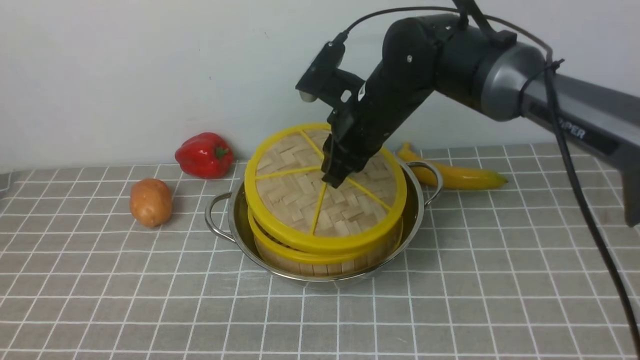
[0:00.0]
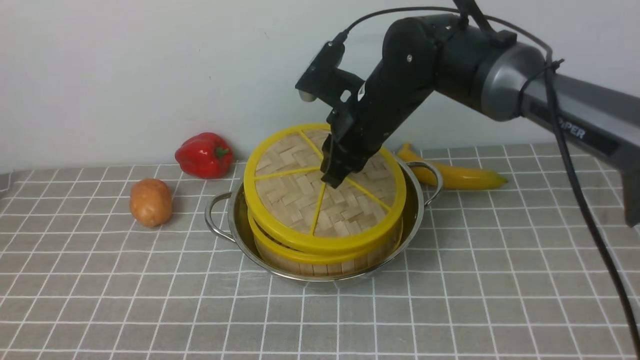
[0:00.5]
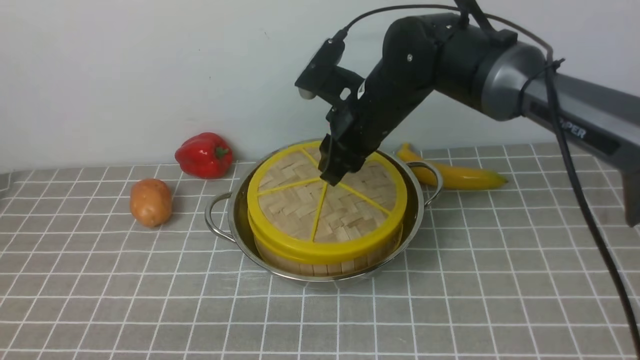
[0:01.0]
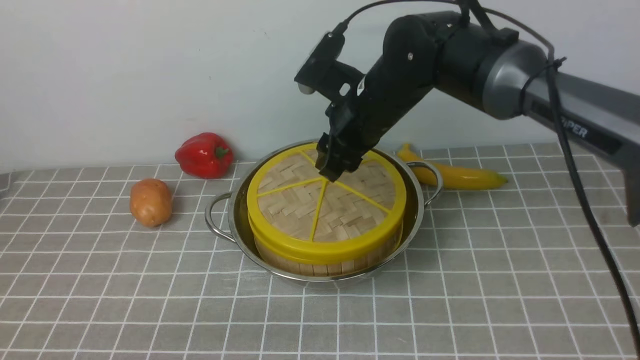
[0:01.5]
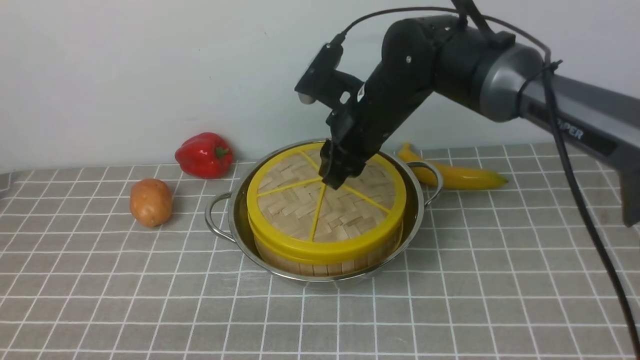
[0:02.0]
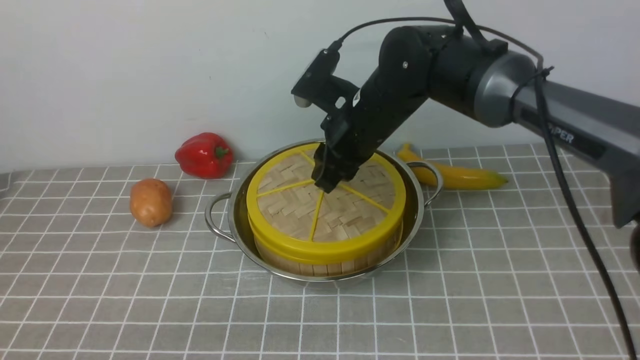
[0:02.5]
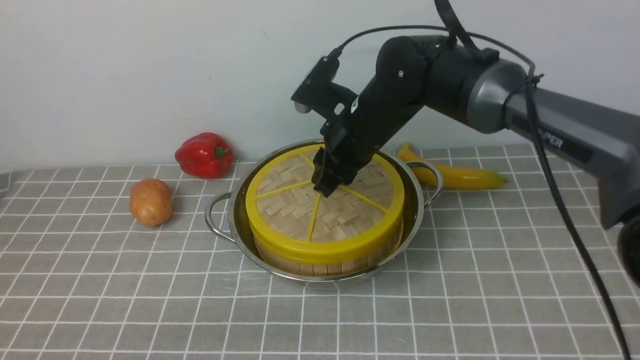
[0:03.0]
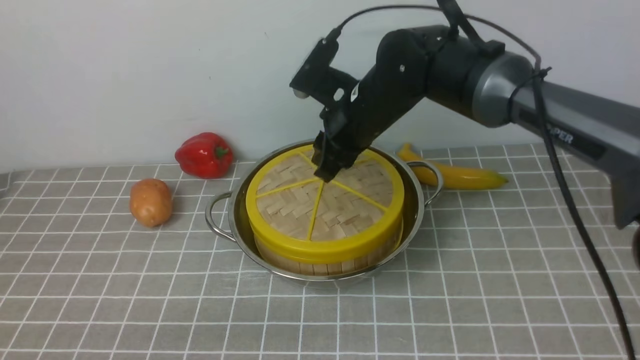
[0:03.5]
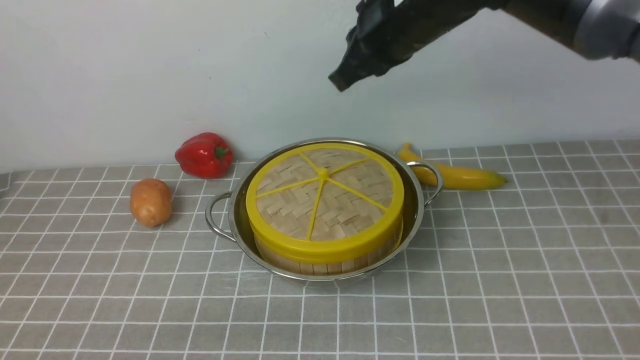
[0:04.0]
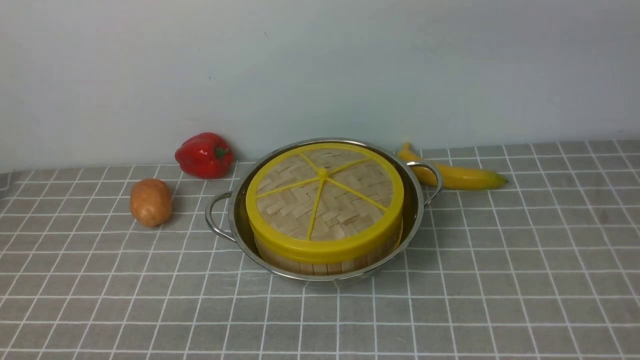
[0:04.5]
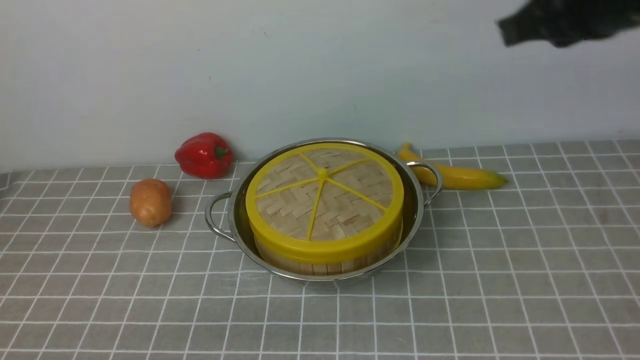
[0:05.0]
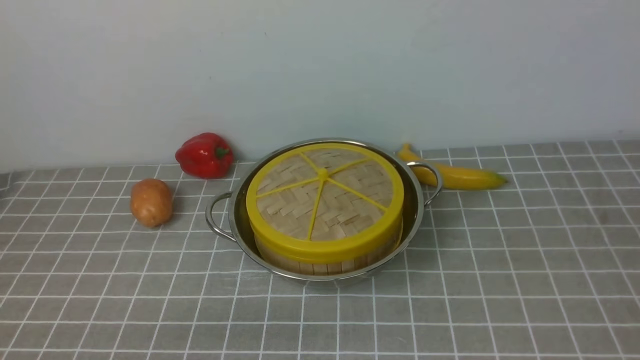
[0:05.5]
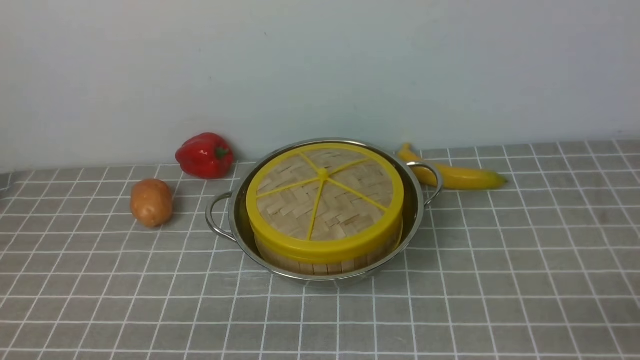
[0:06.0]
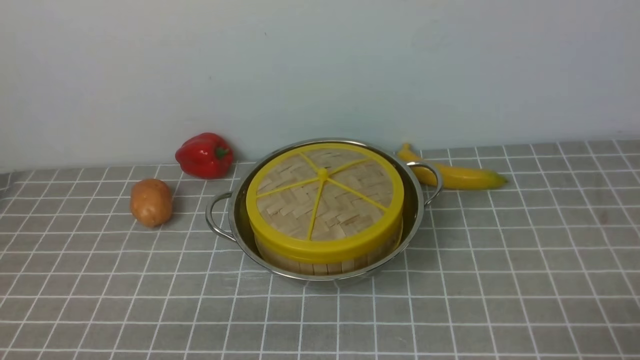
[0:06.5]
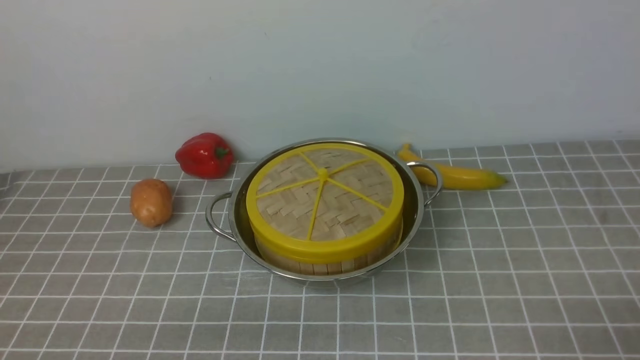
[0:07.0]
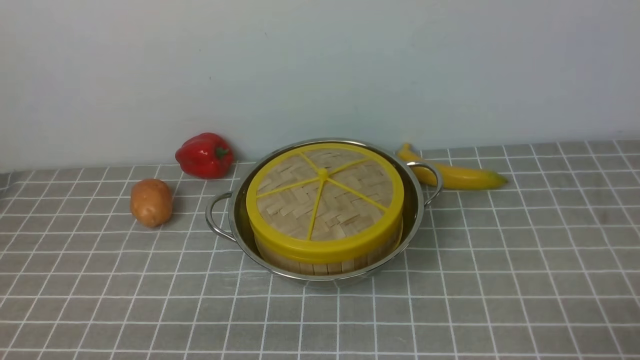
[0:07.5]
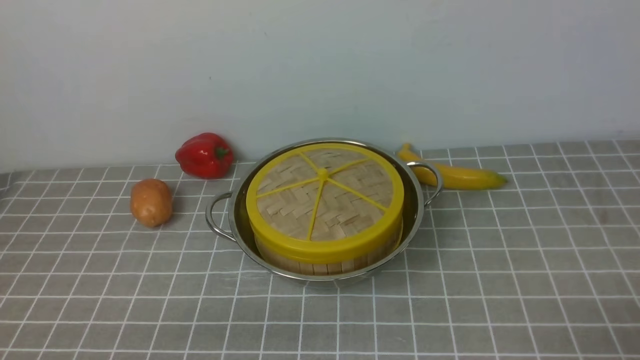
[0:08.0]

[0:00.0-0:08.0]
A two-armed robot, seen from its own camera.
Task of the whole recording: place the steamer in the pot on the grey tablecloth, and put the lid on the steamer.
Step, 0:00.0 to 0:03.5: use the right arm to place the steamer lid on the steamer.
0:00.0 to 0:02.0: The right gripper opens its fingers.
0:02.0 to 0:04.0: The right gripper goes approximately 10 cm upward, and closes.
0:04.0 to 0:06.0: The right gripper moves backward, to the right and downward, about 40 cm, and opens.

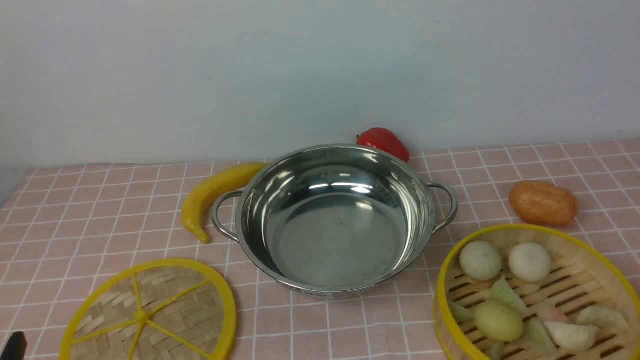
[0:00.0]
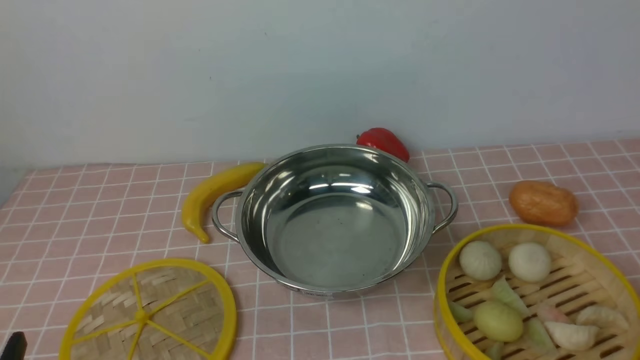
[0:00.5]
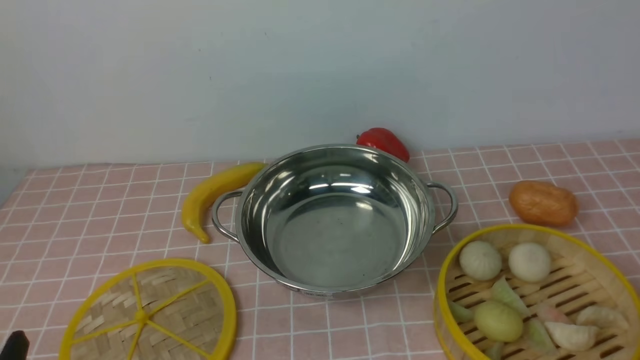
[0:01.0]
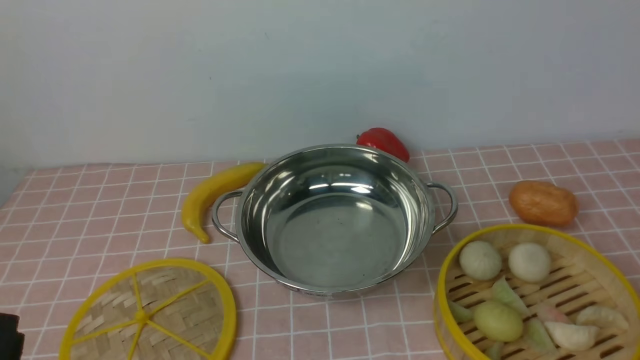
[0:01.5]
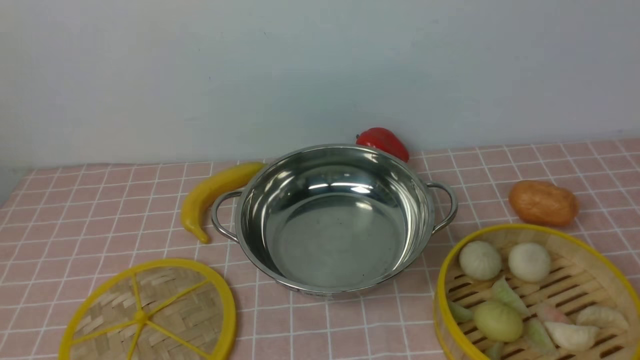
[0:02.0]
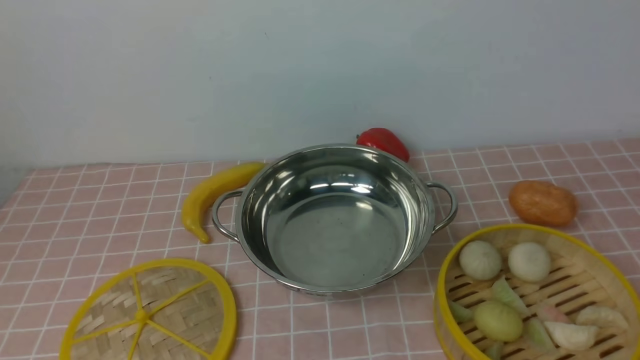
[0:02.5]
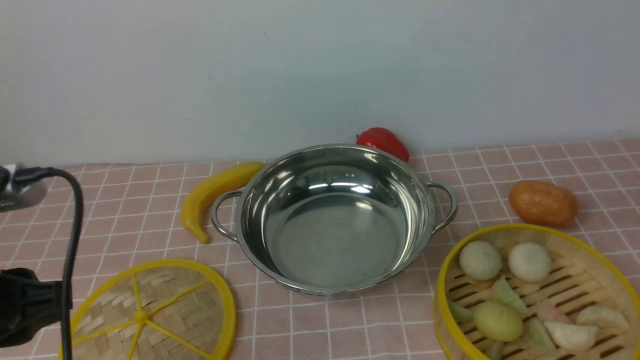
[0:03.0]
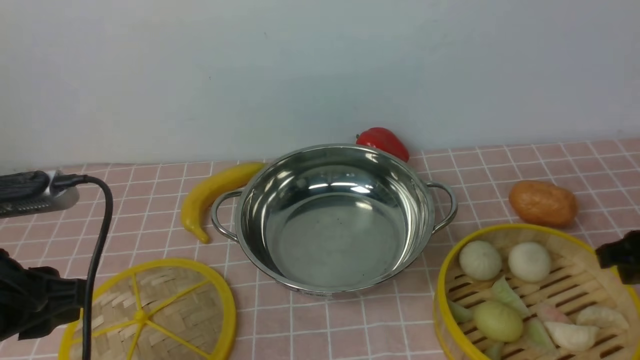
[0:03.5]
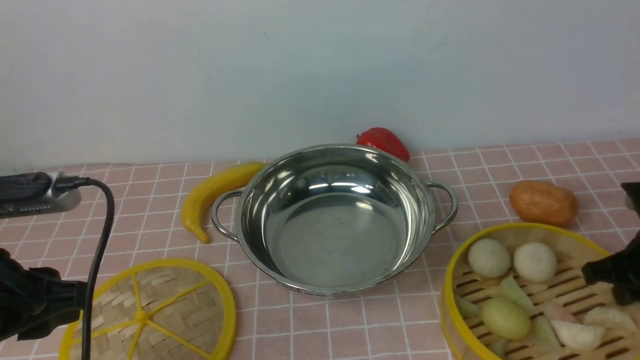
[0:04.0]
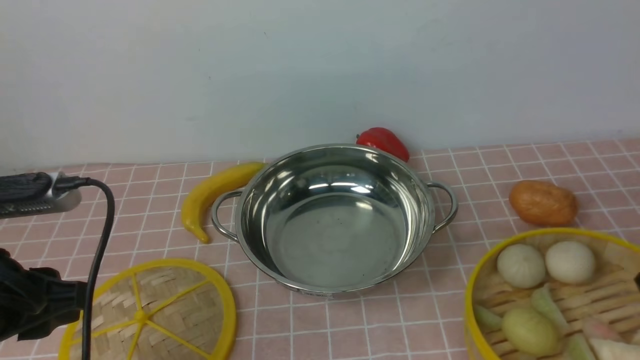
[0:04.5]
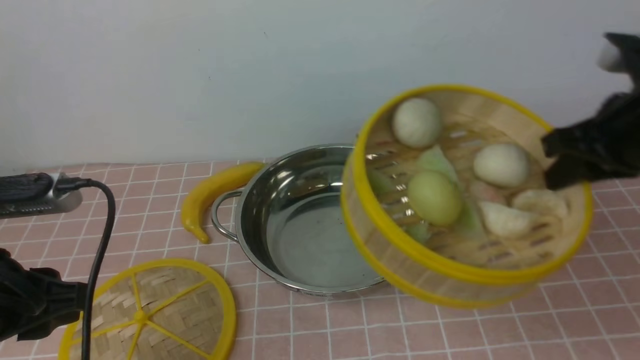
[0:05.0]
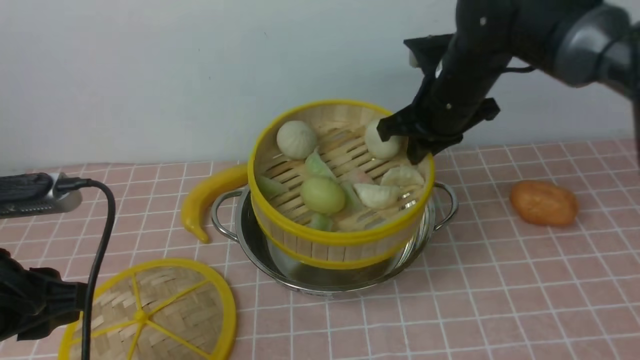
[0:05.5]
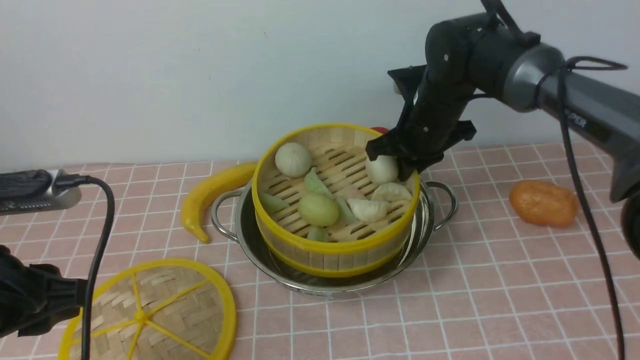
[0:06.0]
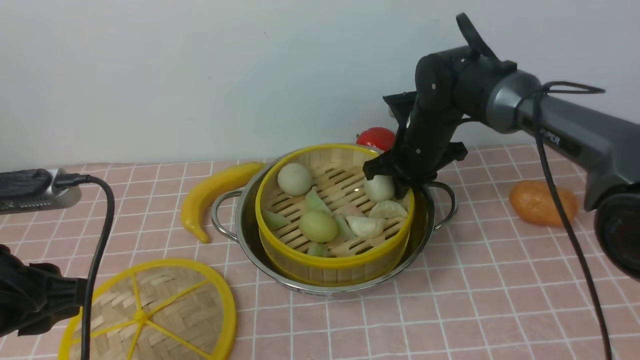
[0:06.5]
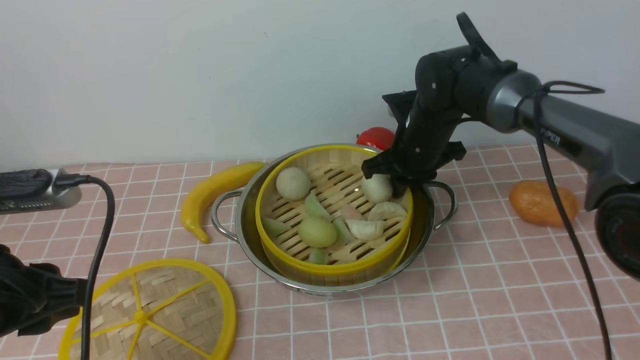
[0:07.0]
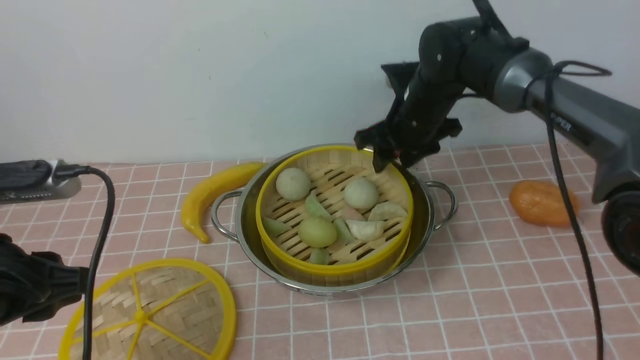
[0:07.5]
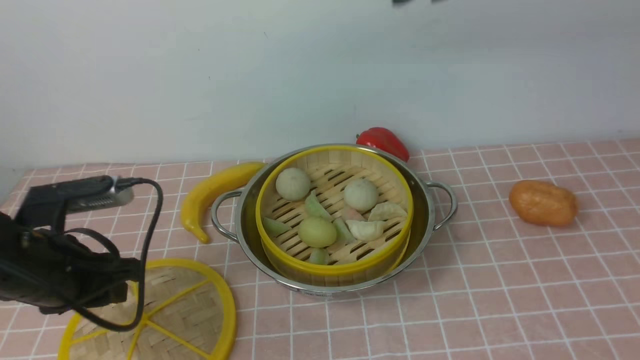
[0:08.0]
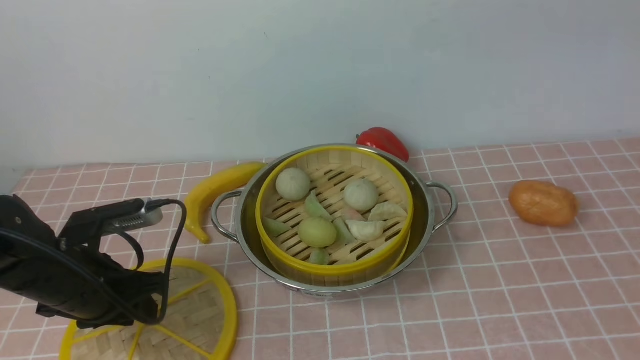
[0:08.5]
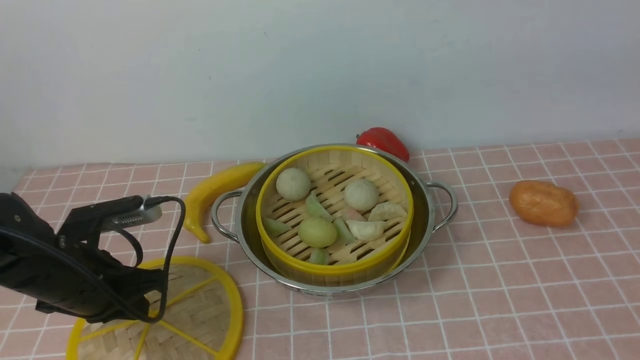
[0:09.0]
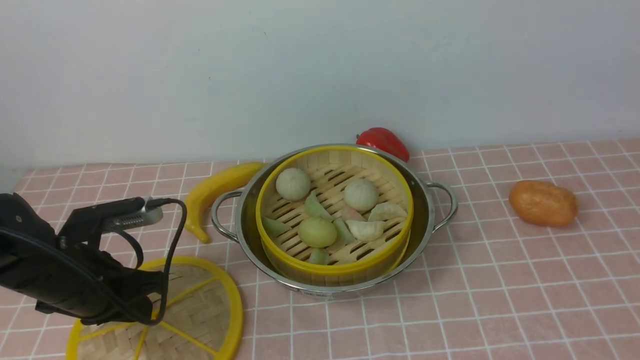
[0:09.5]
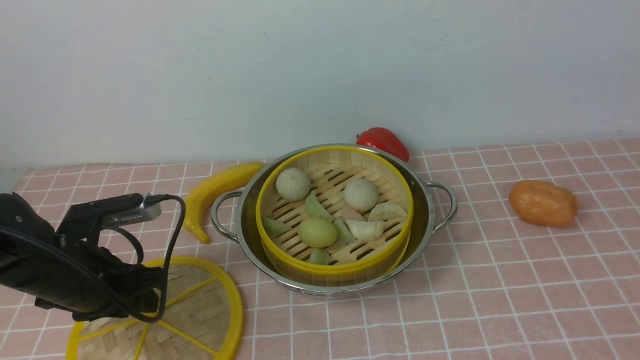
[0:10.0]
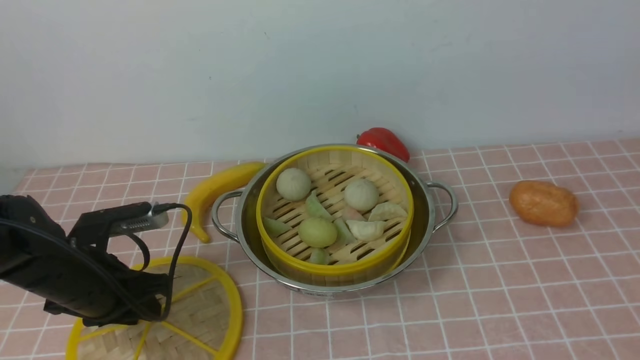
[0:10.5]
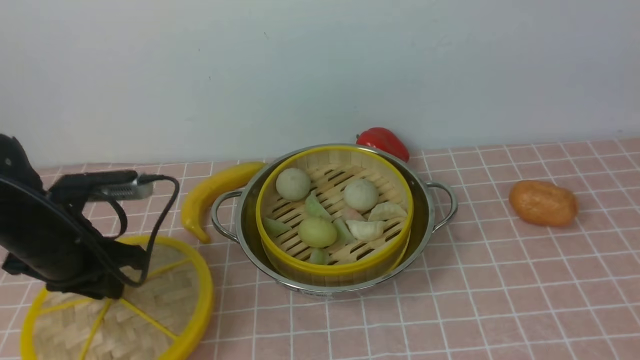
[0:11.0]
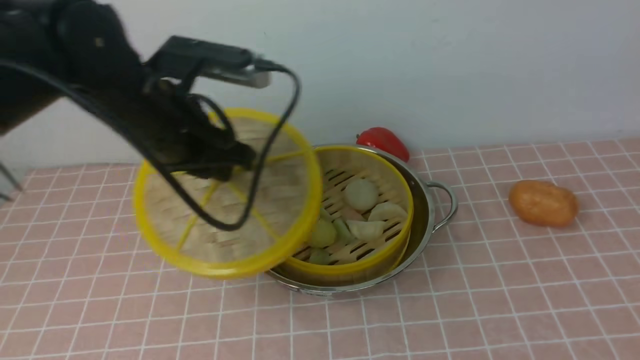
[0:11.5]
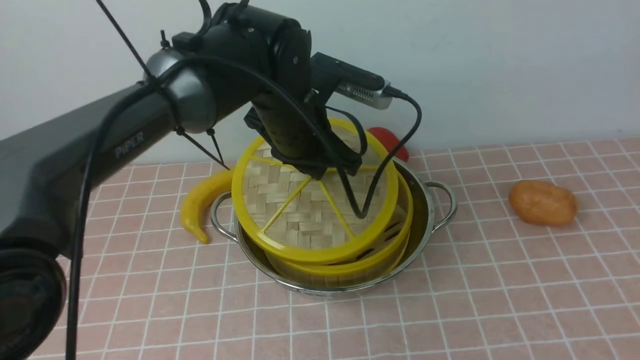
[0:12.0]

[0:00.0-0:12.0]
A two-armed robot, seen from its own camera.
Task of the whole recording: place the steamer in the pot on the pink tablecloth, and put the lid on the steamer.
Step, 0:00.0 to 0:04.0: use the right arm to lift the steamer closest to it.
Step, 0:04.5 to 0:07.0: use the right arm to put the steamer into the iron steamer pot in the middle.
Step, 0:08.0 to 0:10.5: use the left arm to lift the lid of the steamer.
0:02.0 to 0:04.0: The right gripper goes about 30 cm forward and downward. The left gripper goes approximately 15 cm forward.
0:04.0 to 0:06.0: The right gripper moves to the left and forward, about 30 cm.
0:06.0 to 0:08.0: The left gripper goes approximately 10 cm forward and downward, while the right gripper travels upward by approximately 25 cm, and opens.
0:08.0 to 0:10.0: The left gripper ends up roughly 5 cm from where it was, and closes, then reopens.
0:10.0 to 0:12.0: The left gripper goes some 25 cm to the right, forward and upward.
